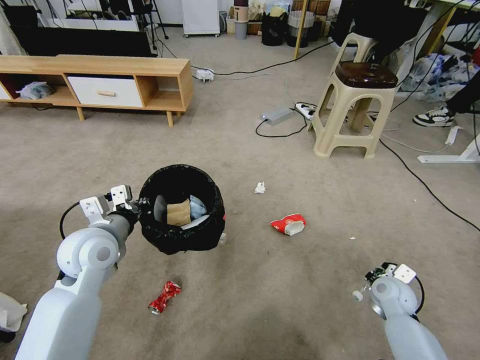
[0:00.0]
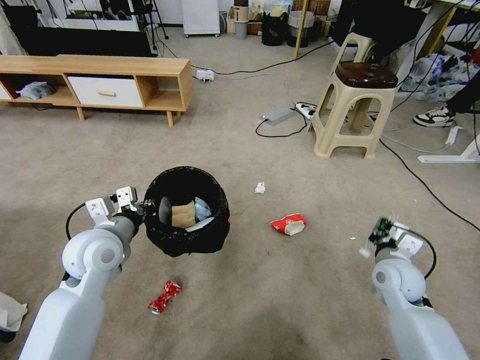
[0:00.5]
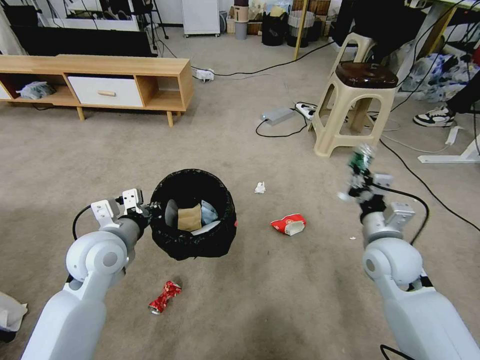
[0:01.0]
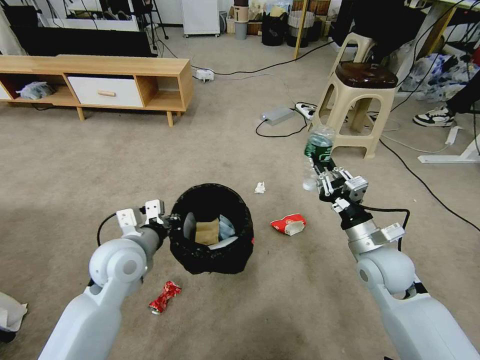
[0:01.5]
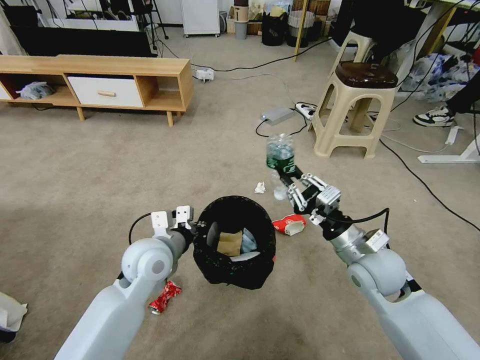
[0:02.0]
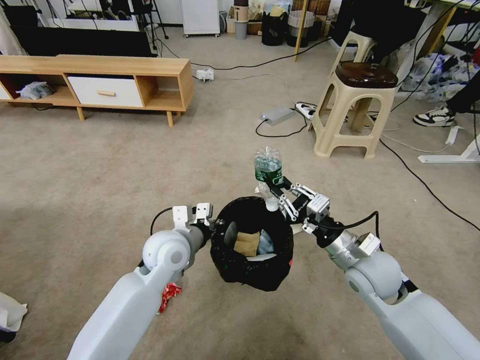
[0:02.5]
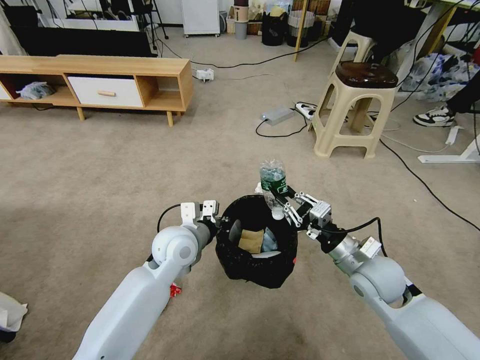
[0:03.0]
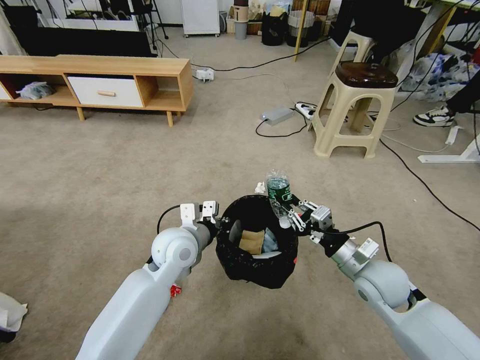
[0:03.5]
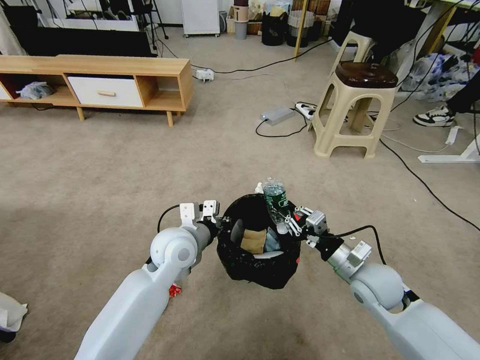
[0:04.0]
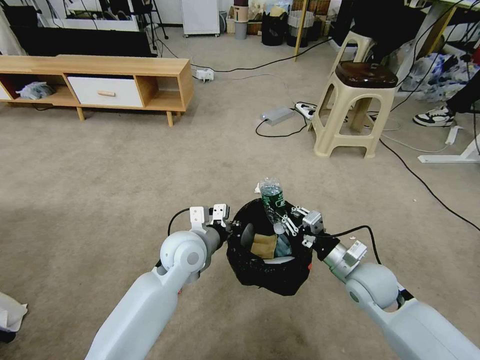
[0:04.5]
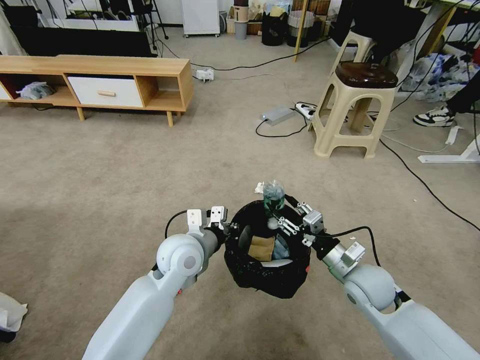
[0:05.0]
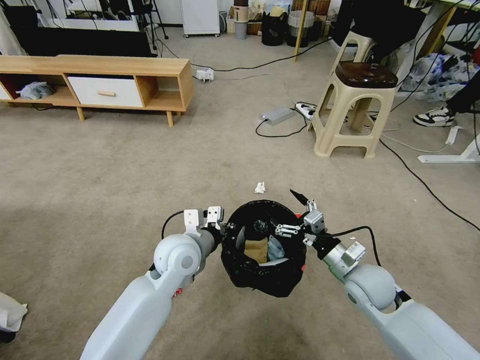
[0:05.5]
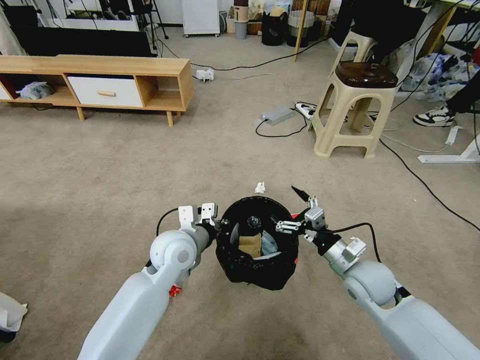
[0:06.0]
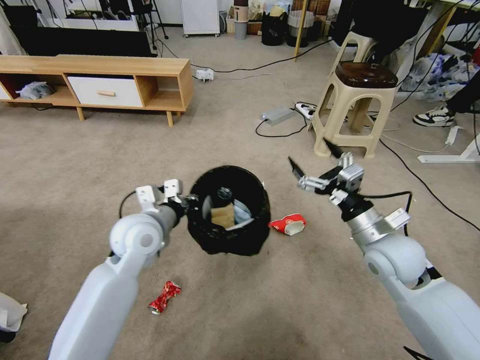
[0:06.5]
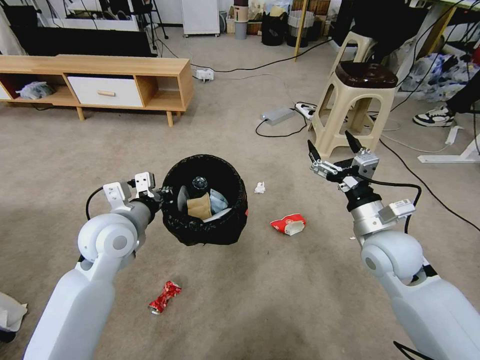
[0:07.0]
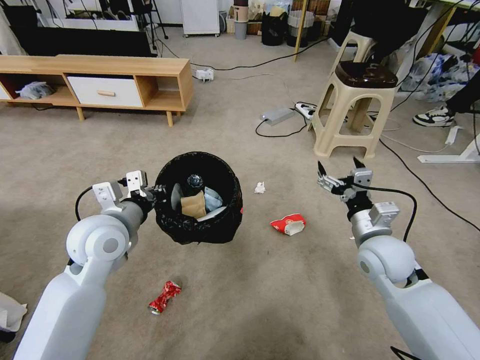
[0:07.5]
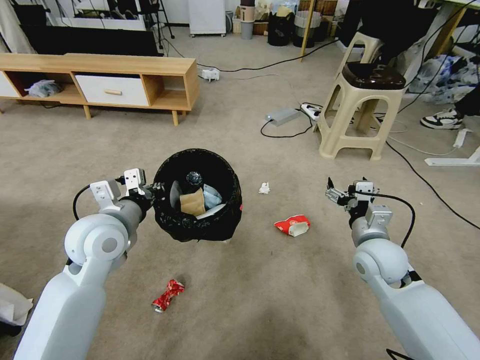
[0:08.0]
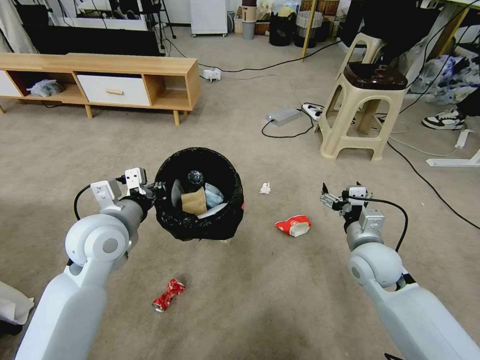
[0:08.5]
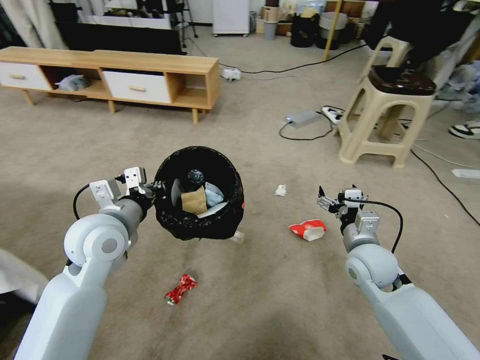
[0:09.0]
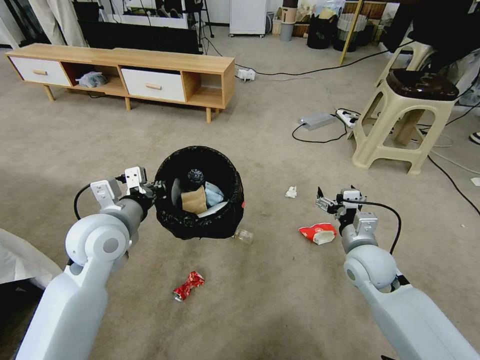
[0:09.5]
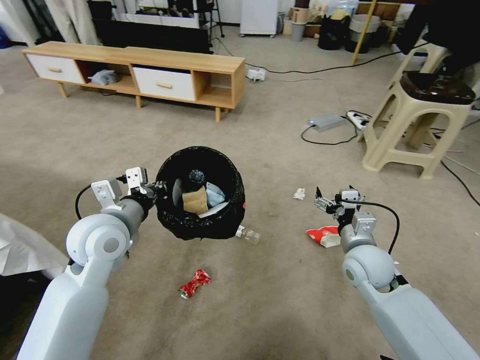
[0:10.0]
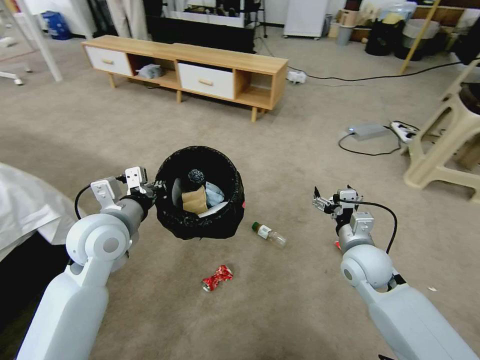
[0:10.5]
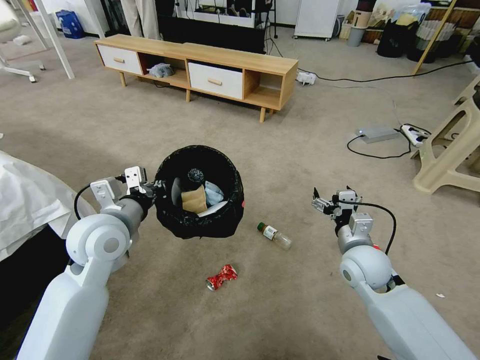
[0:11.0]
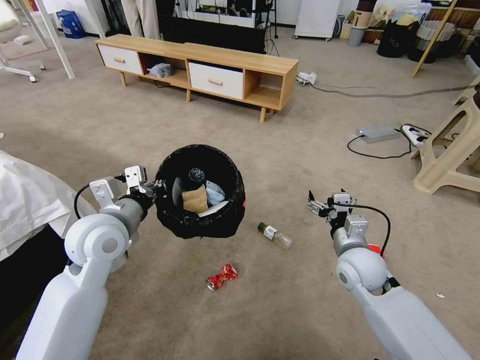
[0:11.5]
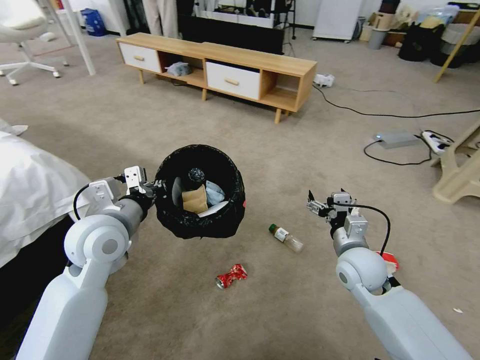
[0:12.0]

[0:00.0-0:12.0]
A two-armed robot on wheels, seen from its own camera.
Task of the whole recording: Pick up the trash bin and place the garbage on the floor into it.
0:00.0 to 0:02.0: The right gripper travels upward and to the left by approximately 20 cm; the left gripper goes roughly 10 cm to the right.
0:02.0 to 0:04.0: The left gripper moves about 5 cm, while the right gripper goes about 5 cm downward.
0:04.0 to 0:06.0: The right gripper opens.
0:06.0 to 0:08.0: The left gripper heads to the left and upward, covering about 15 cm.

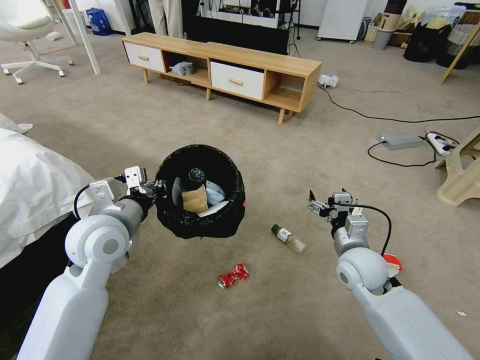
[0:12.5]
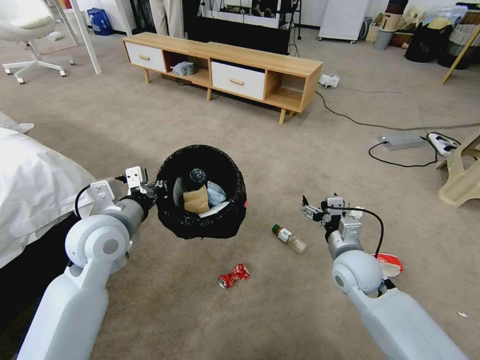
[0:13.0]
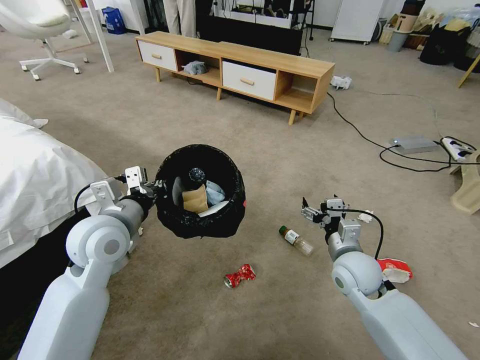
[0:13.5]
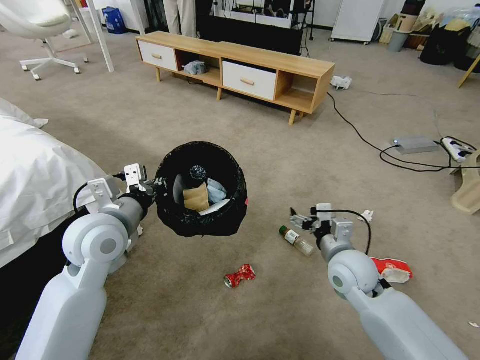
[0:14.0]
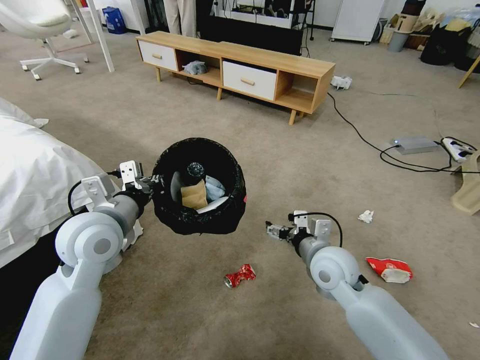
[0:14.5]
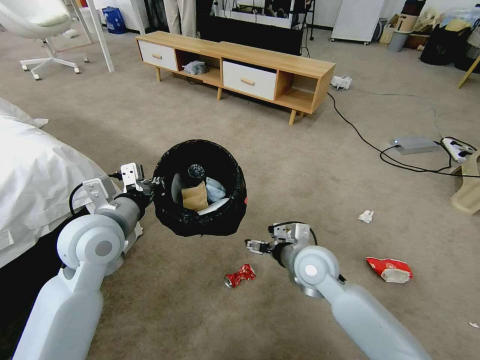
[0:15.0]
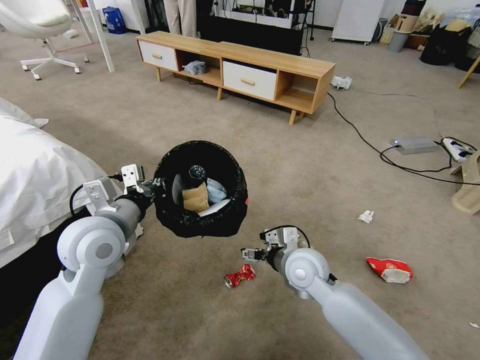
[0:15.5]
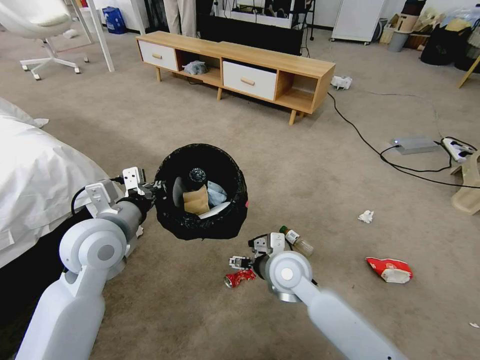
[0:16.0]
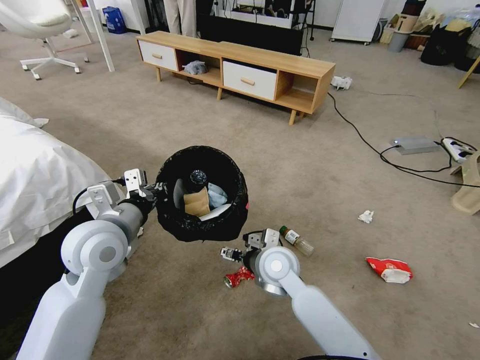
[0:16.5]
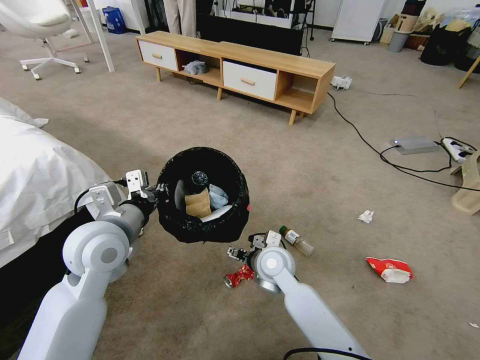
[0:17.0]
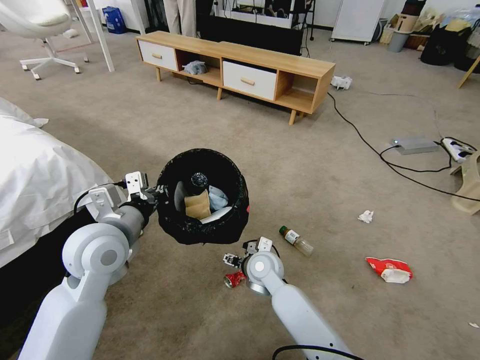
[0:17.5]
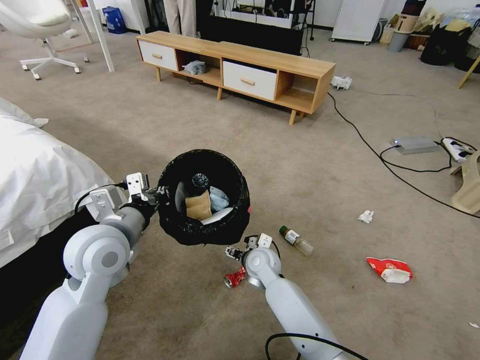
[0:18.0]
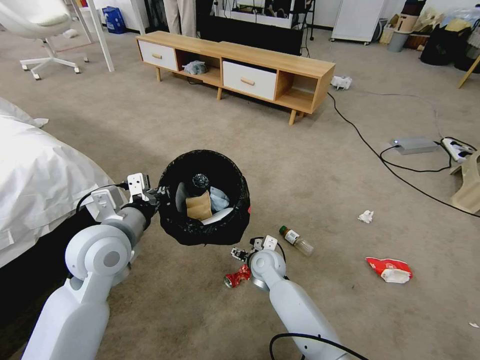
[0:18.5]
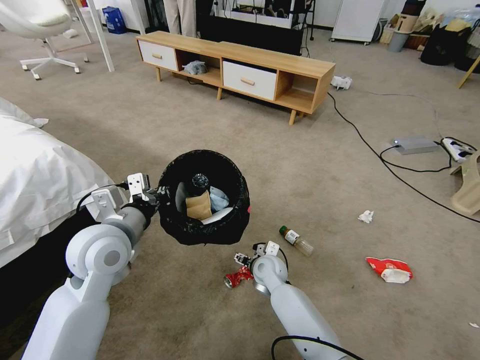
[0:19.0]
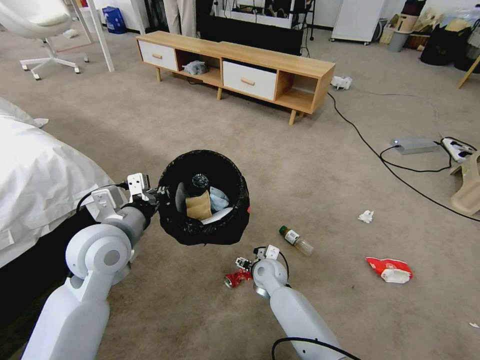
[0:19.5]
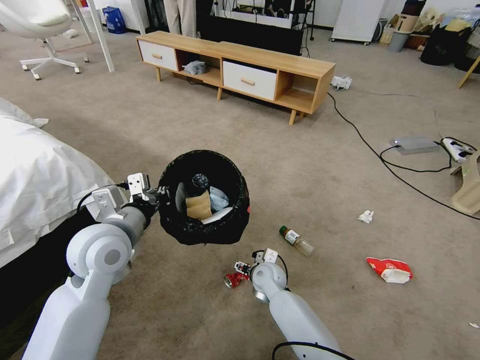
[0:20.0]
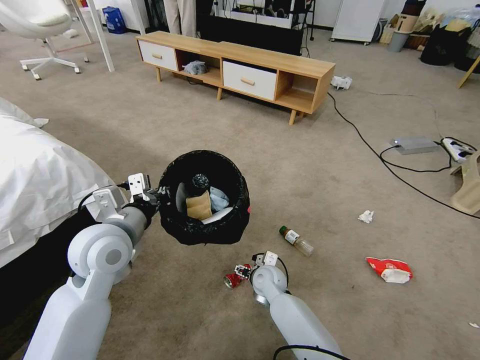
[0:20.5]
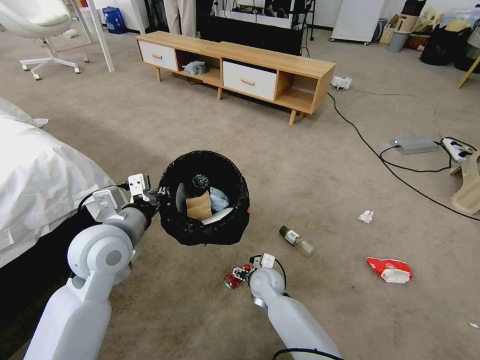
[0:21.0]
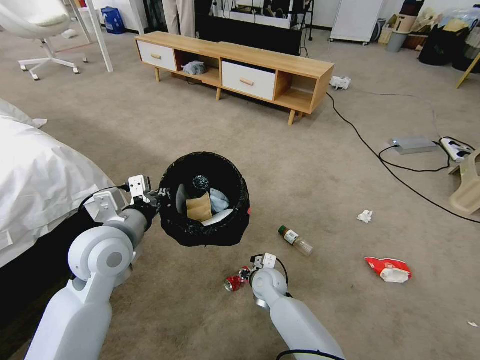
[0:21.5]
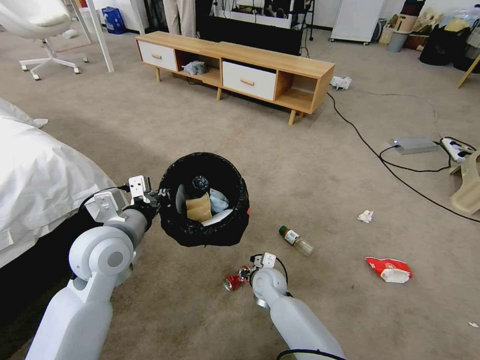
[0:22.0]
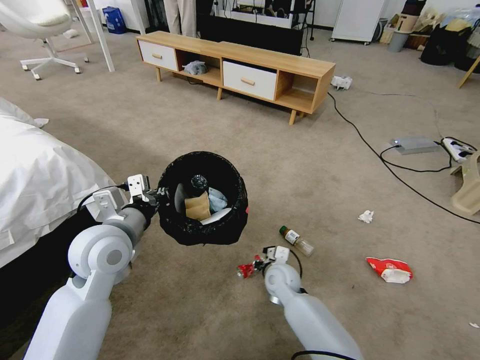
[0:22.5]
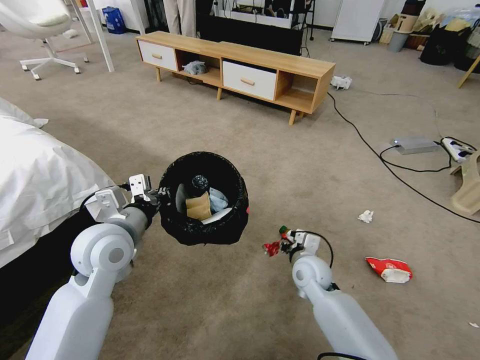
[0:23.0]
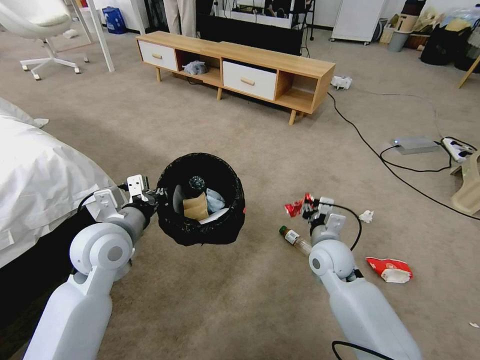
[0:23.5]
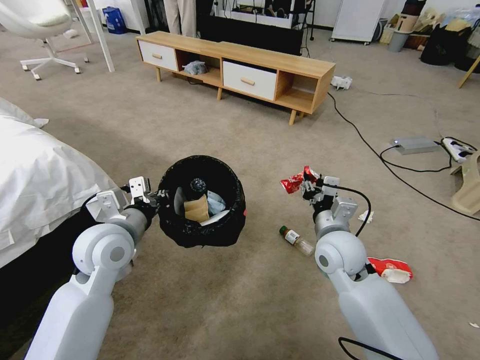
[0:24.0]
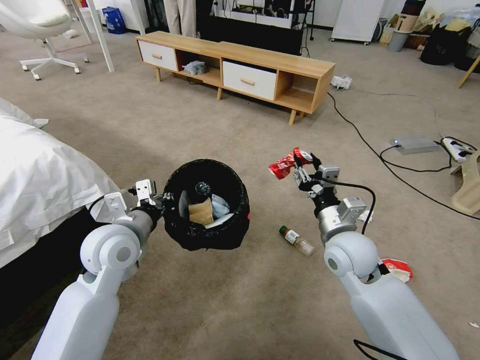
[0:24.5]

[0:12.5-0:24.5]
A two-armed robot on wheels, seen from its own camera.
Task of the whole recording: Pick up the trash bin and place the garbage on the floor into it.
0:12.5 to 0:14.5: The right gripper moves to the left, approximately 5 cm.
0:14.5 to 0:16.5: The right gripper moves to the left, approximately 10 cm.
0:16.5 to 0:18.5: The right gripper moves downward and forward, some 10 cm.
0:18.5 to 0:20.5: The right gripper moves roughly 5 cm.
0:20.5 to 0:22.5: The right gripper closes up.
0:22.5 to 0:24.5: The right gripper is displaced upward and to the right by about 25 cm.

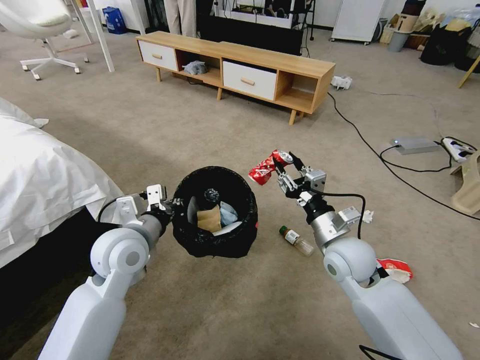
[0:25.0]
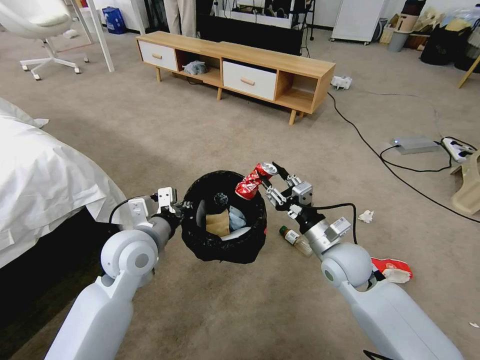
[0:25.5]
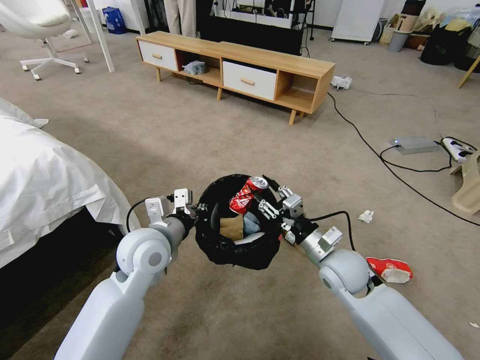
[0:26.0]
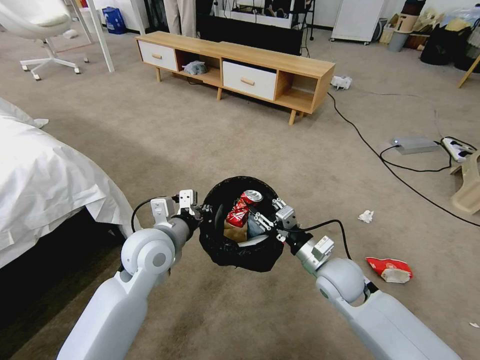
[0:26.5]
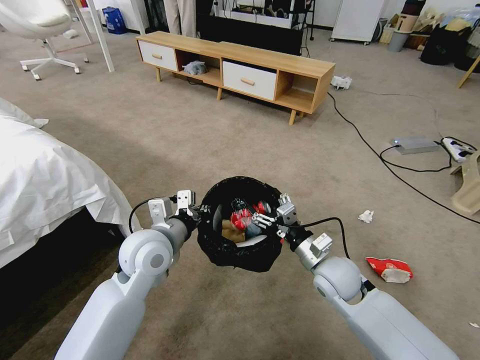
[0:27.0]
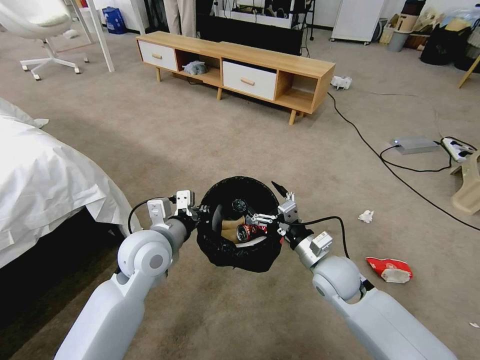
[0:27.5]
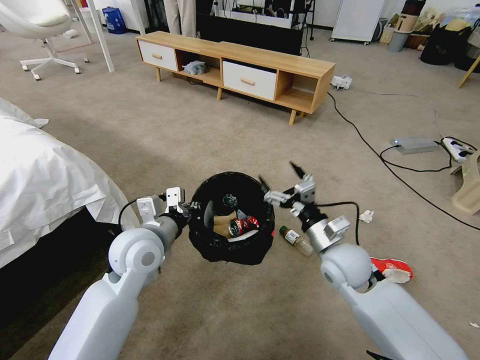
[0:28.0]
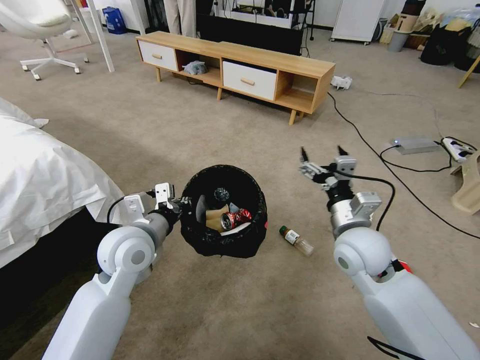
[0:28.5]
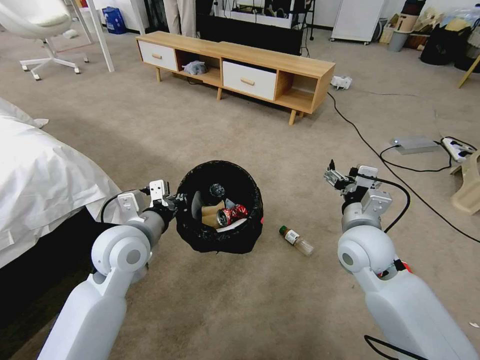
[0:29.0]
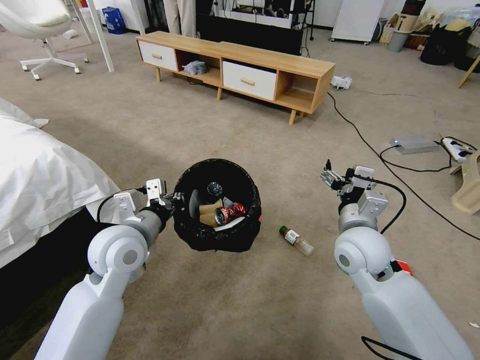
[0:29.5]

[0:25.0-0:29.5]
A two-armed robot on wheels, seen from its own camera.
Task of the whole recording: Pick up the trash bin and place the garbage on the floor into it.
0:25.0 to 0:27.0: The right gripper heads downward, covering about 5 cm, and opens up.
0:27.0 to 0:29.5: The right gripper goes about 10 cm upward.
